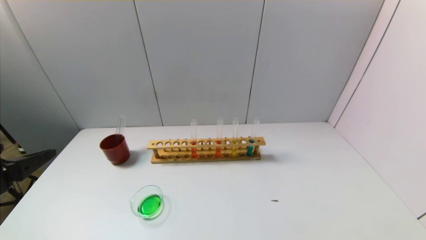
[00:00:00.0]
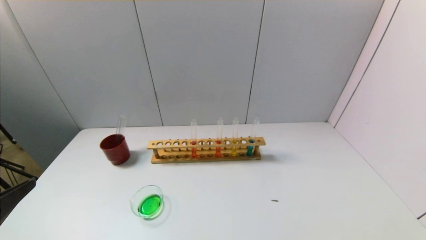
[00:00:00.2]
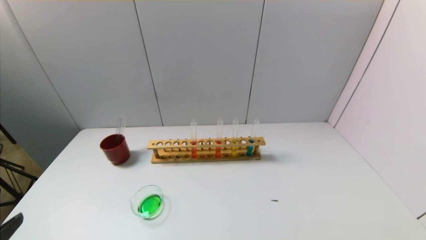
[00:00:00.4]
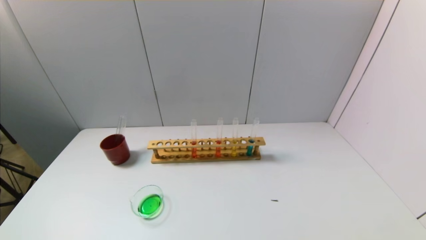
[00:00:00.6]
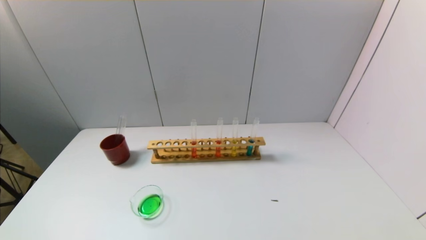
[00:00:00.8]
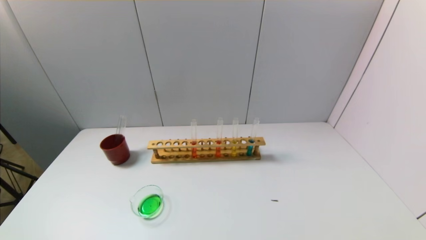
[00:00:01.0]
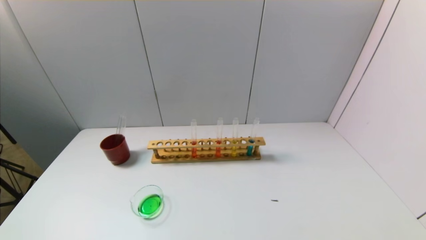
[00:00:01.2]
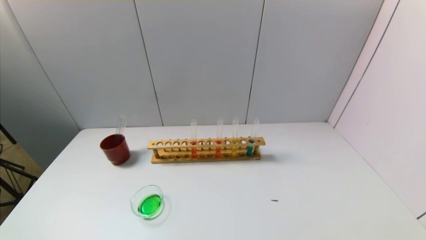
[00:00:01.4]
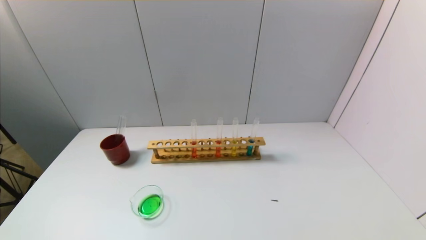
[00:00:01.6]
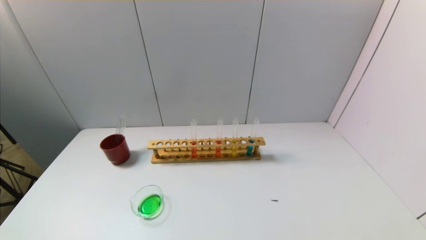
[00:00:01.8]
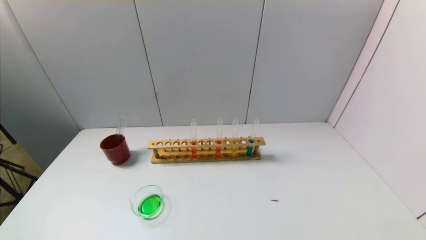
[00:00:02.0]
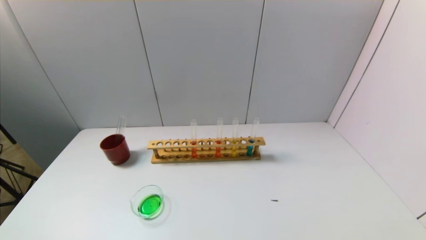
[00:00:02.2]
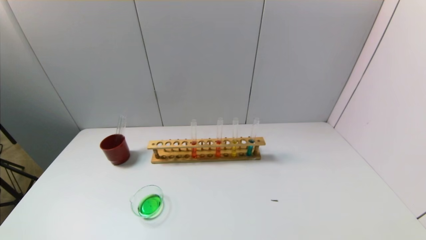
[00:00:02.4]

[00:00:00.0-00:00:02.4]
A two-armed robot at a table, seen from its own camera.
Task of the whole recording: pick up the test tube with yellow pigment and the test tube with blue pigment by grippers and pour them into the beaker.
00:00:00.0 to 00:00:01.2: The left gripper shifts about 20 cm downward and backward.
